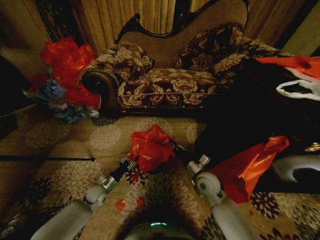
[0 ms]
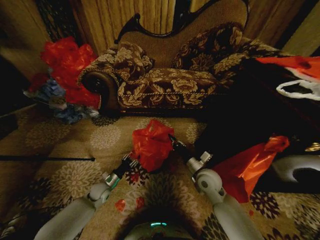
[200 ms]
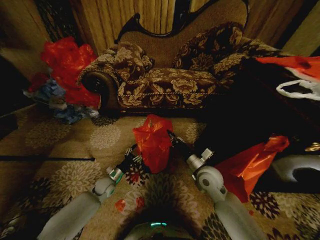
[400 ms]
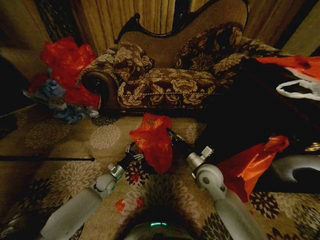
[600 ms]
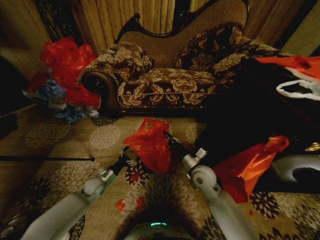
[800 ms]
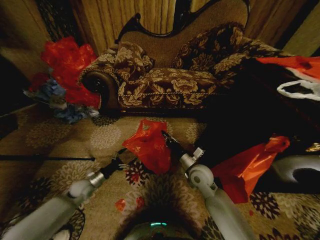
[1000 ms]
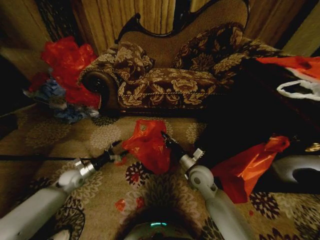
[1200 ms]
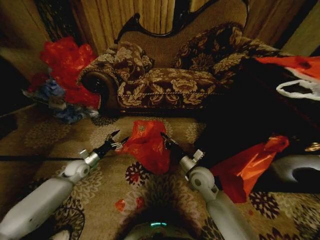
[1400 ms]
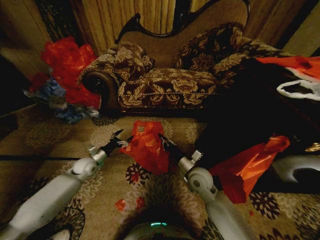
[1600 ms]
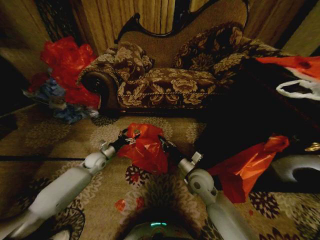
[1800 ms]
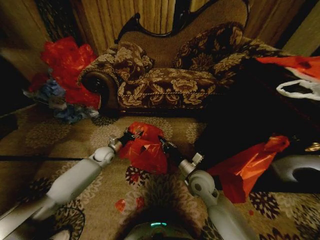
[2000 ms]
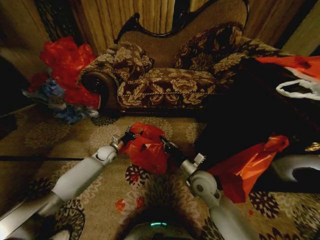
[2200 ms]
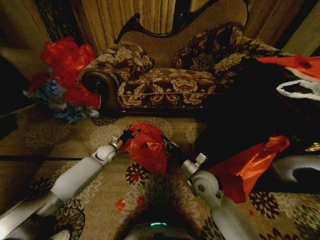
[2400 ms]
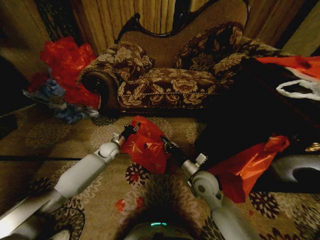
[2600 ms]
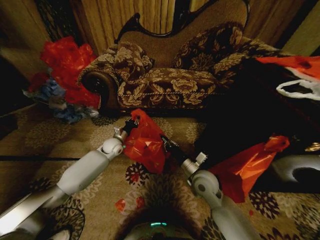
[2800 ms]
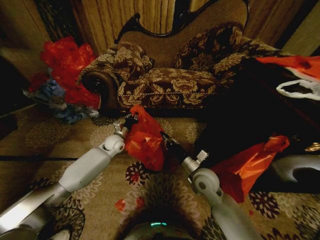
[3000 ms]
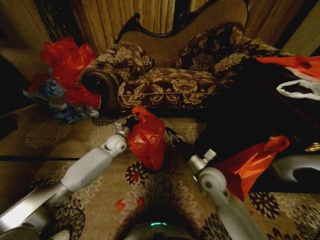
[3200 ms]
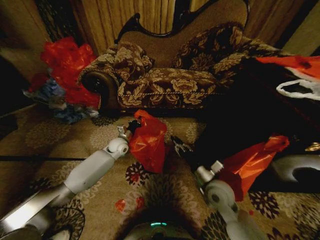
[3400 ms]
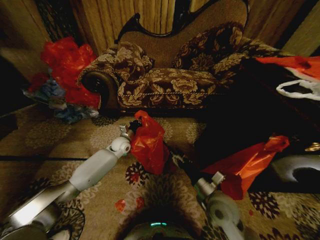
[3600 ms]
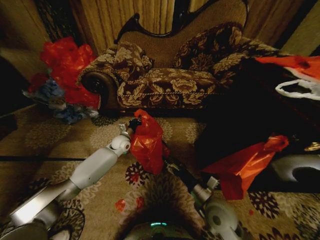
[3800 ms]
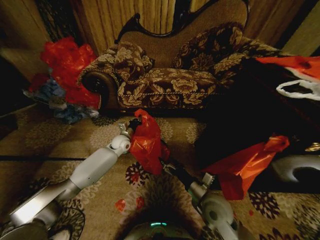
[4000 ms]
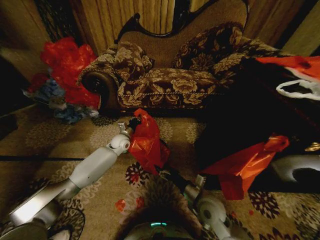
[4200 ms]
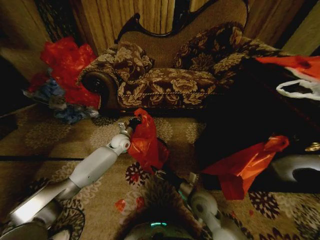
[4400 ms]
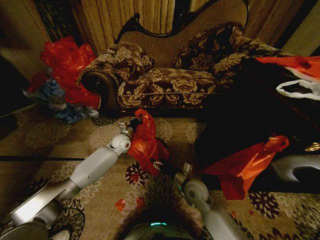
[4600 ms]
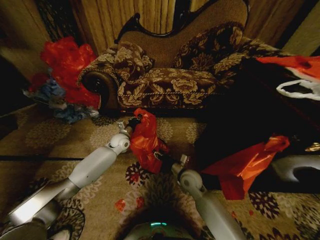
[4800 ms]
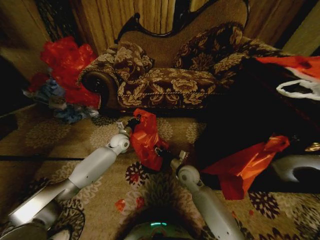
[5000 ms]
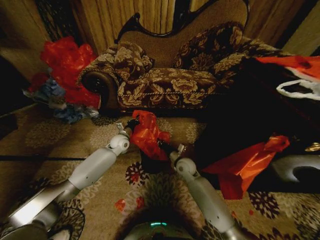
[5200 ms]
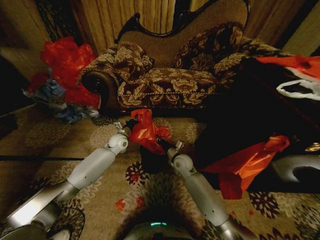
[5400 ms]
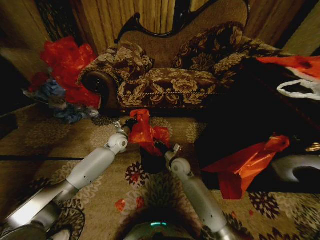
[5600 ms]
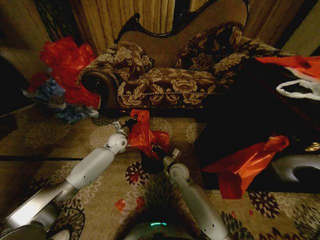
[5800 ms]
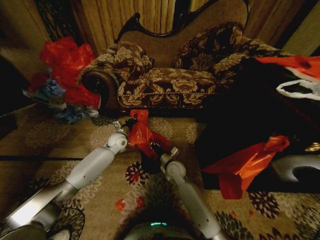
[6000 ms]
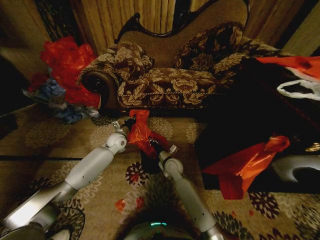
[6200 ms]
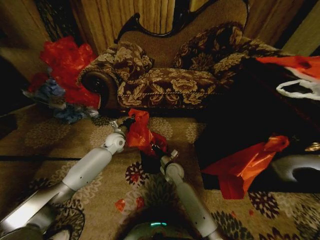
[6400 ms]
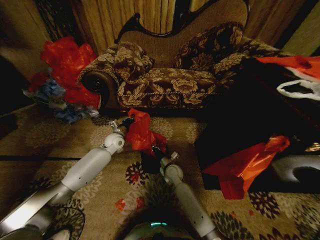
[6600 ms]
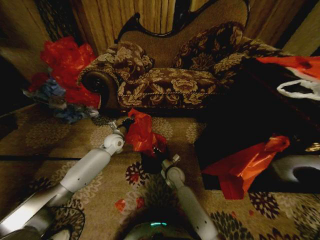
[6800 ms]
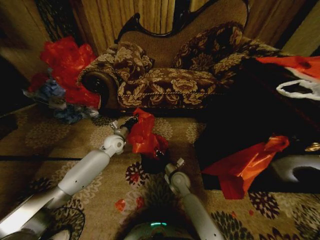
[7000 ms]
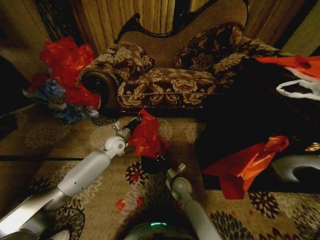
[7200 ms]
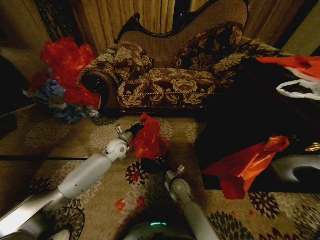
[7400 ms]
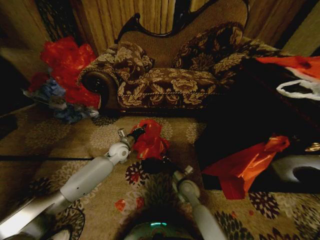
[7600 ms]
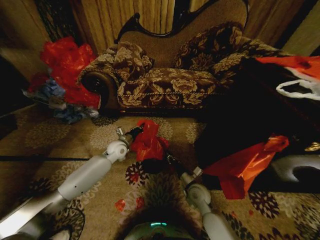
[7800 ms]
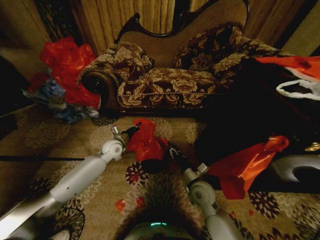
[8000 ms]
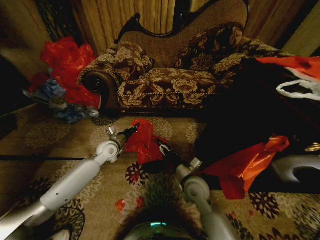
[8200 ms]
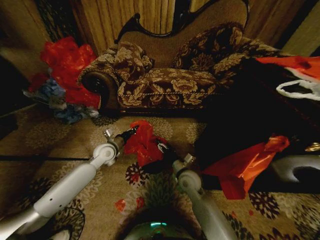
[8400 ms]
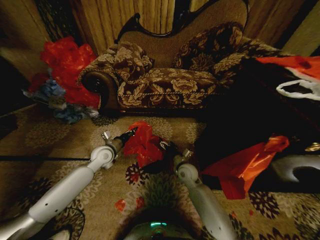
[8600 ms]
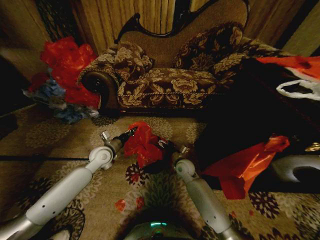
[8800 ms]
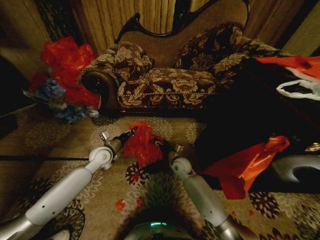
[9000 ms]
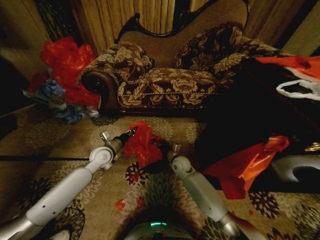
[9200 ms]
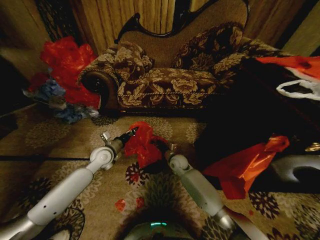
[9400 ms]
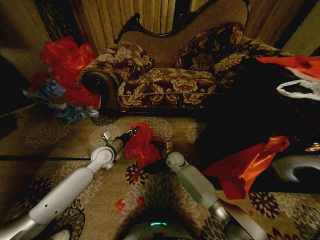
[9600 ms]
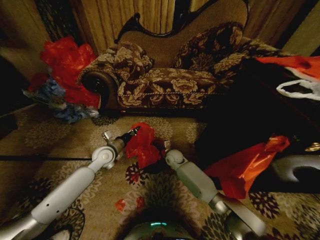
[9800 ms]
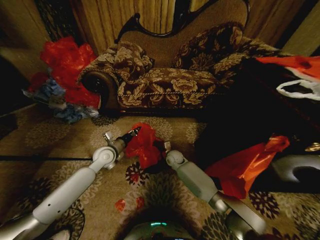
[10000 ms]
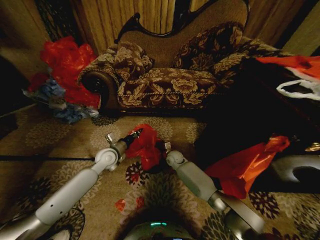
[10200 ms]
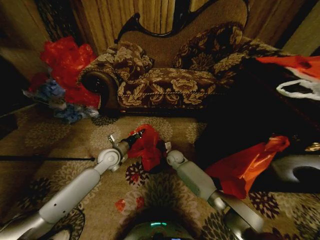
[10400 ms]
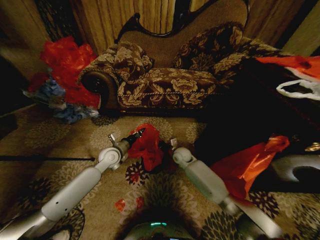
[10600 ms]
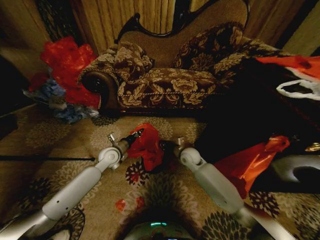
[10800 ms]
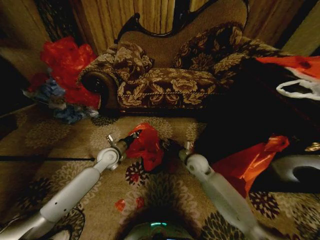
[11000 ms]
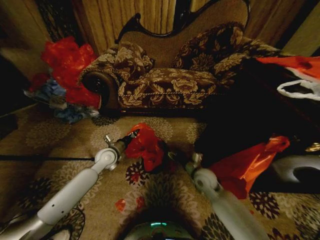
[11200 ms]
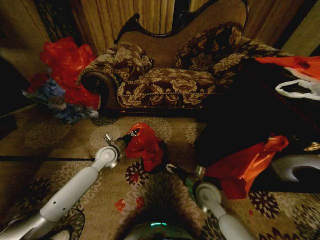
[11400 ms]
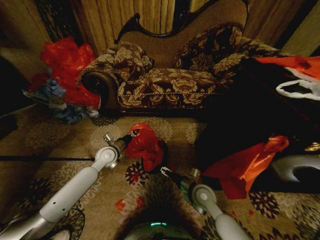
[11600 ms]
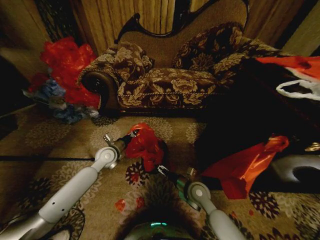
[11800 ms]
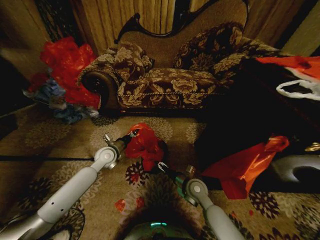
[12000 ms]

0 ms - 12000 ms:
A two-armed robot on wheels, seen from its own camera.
Task of the whole recording: Place a garbage bag over the trash bin.
0 ms - 1600 ms: The left gripper goes left and right, some 15 cm each way, reversing 2 times, and opens up.
1600 ms - 3000 ms: The left gripper moves to the right, forward and upward, about 15 cm, and closes up.
3000 ms - 4400 ms: The right gripper moves downward and backward, some 10 cm, and opens its fingers.
4400 ms - 6000 ms: The right gripper moves forward and to the left, approximately 15 cm, and closes its fingers.
6000 ms - 7600 ms: The left gripper shifts by about 5 cm. Meanwhile the right gripper is displaced downward, backward and to the right by approximately 10 cm.
7600 ms - 9000 ms: The right gripper goes approximately 10 cm forward, and opens, while the left gripper is displaced backward by approximately 5 cm.
9000 ms - 10400 ms: The right gripper heads forward, covering approximately 5 cm, and closes up.
10400 ms - 12000 ms: The right gripper moves backward, about 20 cm, and opens up.

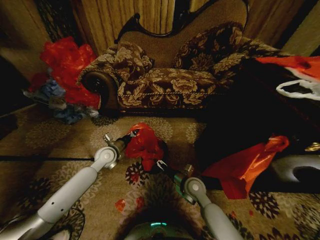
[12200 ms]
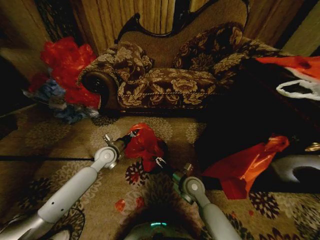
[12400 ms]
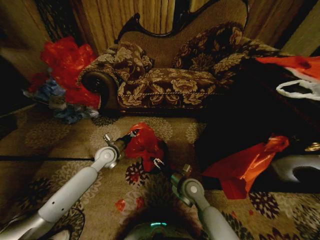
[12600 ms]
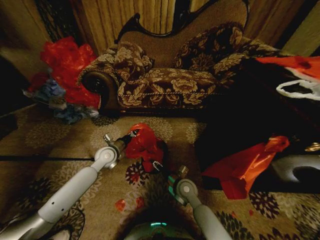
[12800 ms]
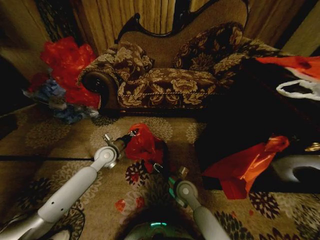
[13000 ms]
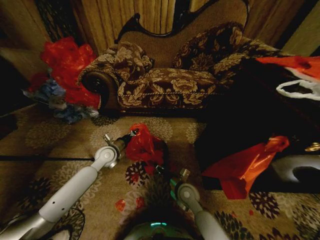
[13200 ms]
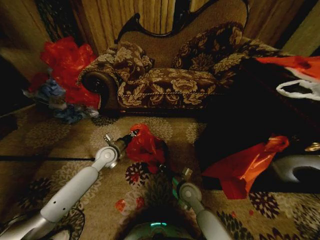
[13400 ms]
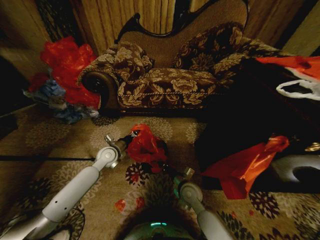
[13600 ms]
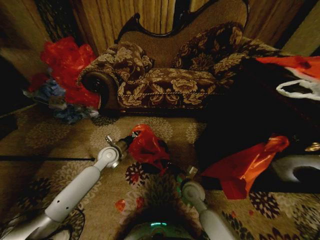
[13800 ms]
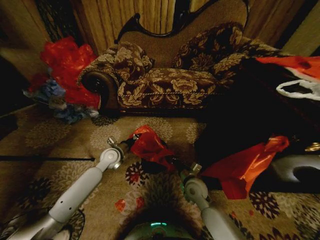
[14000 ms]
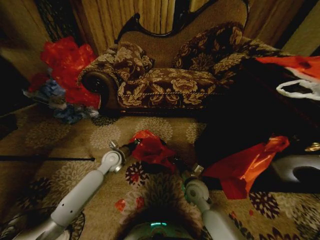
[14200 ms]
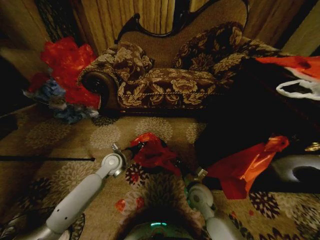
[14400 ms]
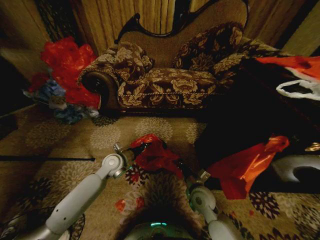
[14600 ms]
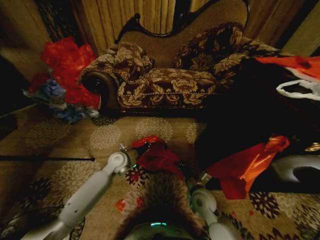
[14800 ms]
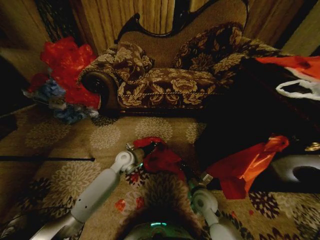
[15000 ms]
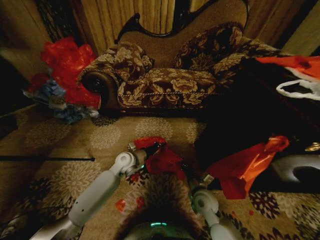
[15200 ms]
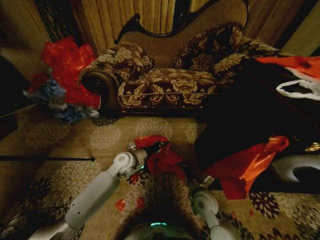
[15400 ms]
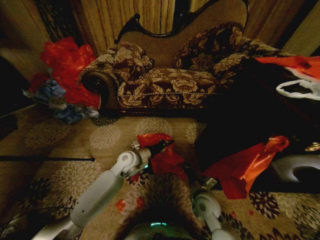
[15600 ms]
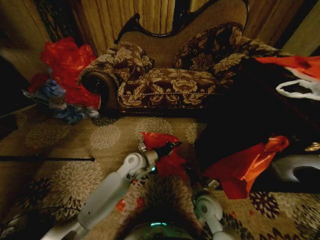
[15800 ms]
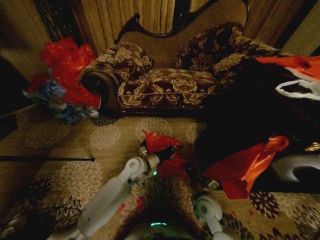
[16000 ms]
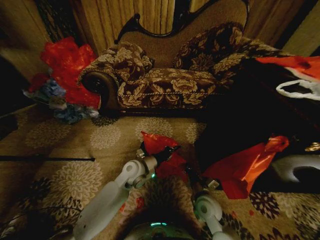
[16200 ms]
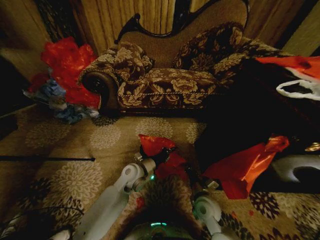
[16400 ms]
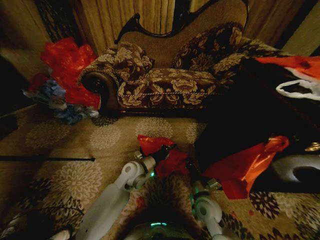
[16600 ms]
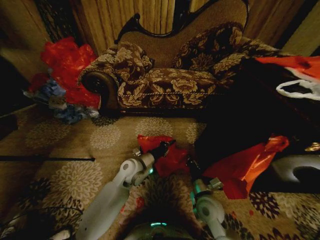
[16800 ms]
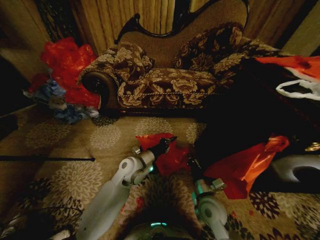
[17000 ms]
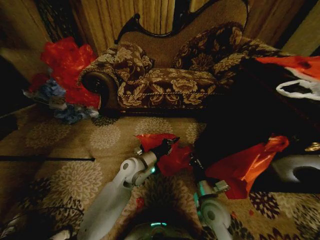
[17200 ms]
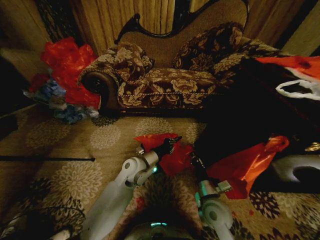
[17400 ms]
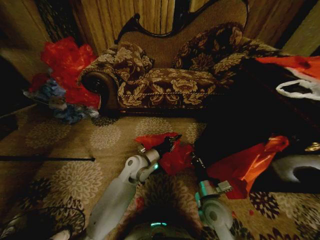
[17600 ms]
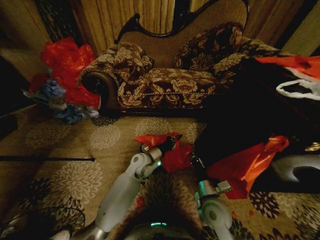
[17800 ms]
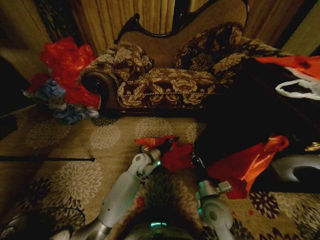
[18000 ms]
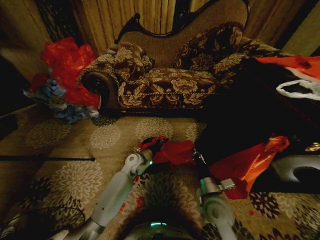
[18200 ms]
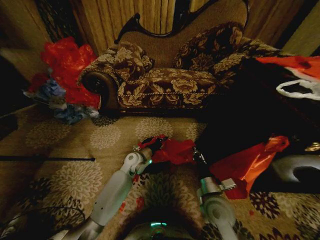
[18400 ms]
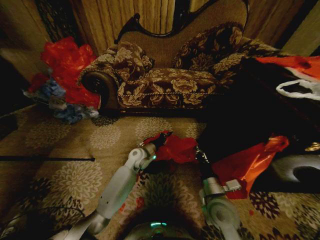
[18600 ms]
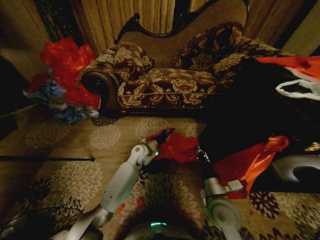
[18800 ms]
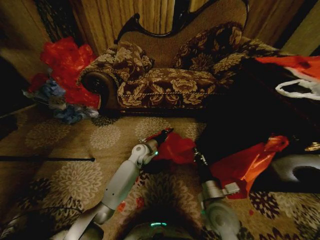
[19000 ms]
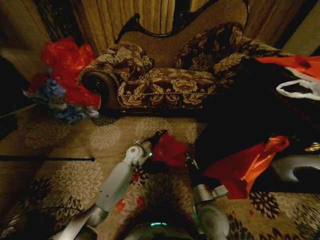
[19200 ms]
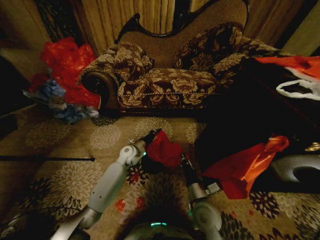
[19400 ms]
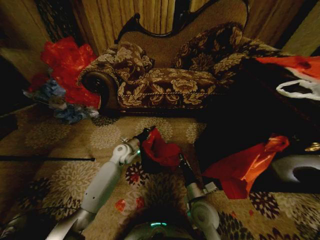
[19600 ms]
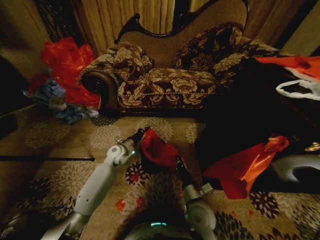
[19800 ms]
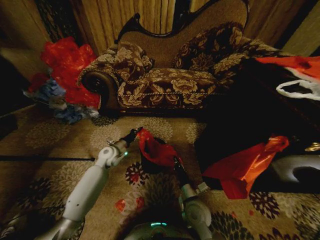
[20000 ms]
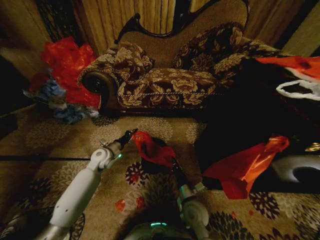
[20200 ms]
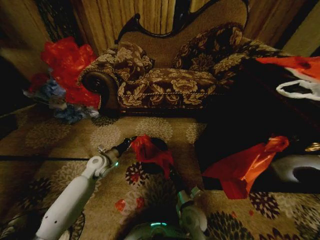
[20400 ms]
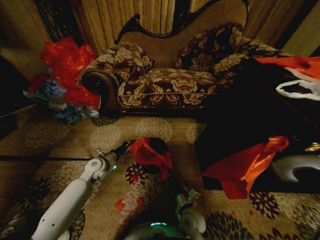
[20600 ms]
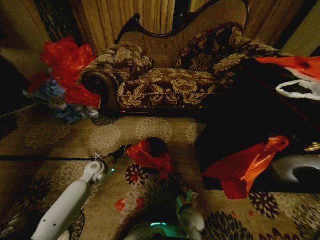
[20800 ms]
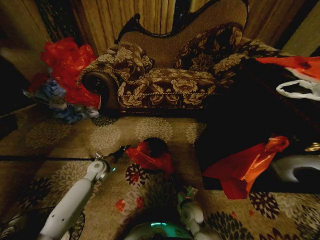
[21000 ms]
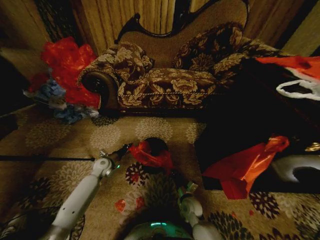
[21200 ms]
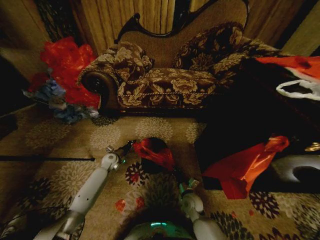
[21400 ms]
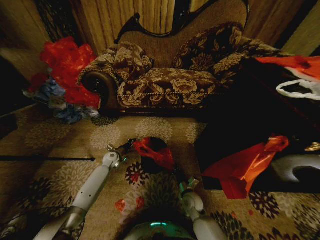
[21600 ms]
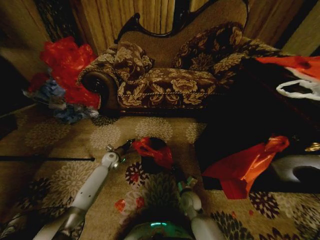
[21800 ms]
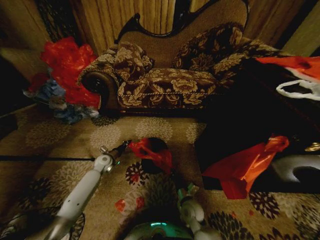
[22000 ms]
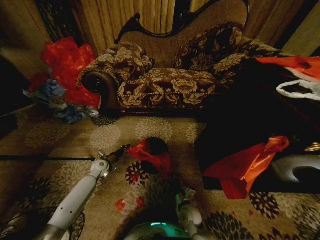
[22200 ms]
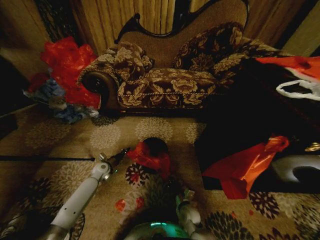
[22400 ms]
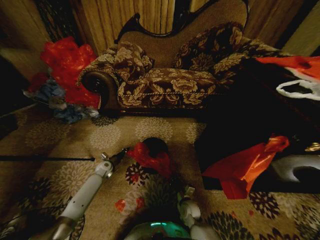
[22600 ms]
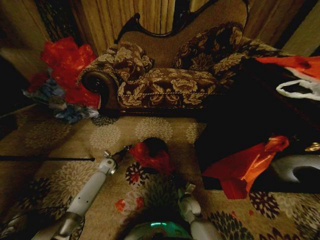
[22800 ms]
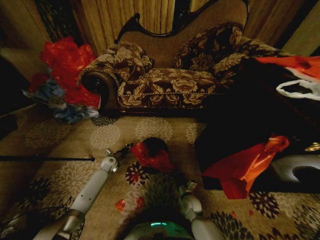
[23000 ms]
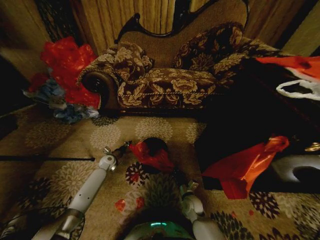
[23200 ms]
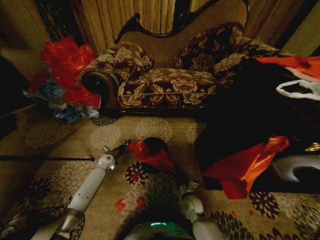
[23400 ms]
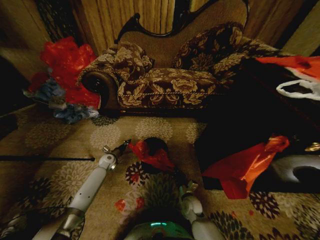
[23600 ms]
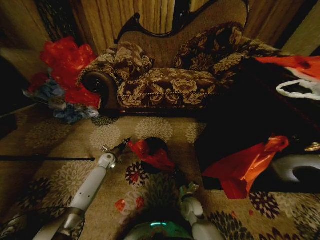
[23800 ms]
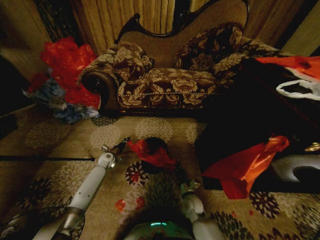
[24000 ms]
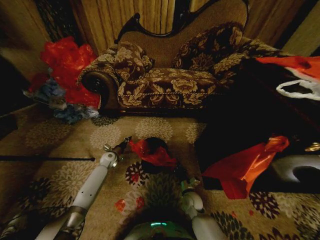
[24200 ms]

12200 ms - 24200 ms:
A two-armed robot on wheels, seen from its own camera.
Task of the whole recording: Place a garbage bag over the trash bin.
12200 ms - 13800 ms: The right gripper closes its fingers.
13800 ms - 15200 ms: The left gripper moves to the right, approximately 10 cm; the right gripper changes place by some 5 cm.
15200 ms - 16600 ms: The left gripper goes roughly 5 cm backward.
16600 ms - 18200 ms: The right gripper moves upward, some 5 cm, while the left gripper moves forward, approximately 10 cm.
18200 ms - 19800 ms: The left gripper is displaced to the left by some 10 cm. The right gripper shifts approximately 5 cm downward.
19800 ms - 21200 ms: The left gripper heads downward and to the left, covering approximately 10 cm; the right gripper travels downward and forward by approximately 10 cm.
21200 ms - 22600 ms: The left gripper is displaced downward by about 5 cm.
22600 ms - 24200 ms: The left gripper moves about 5 cm.
